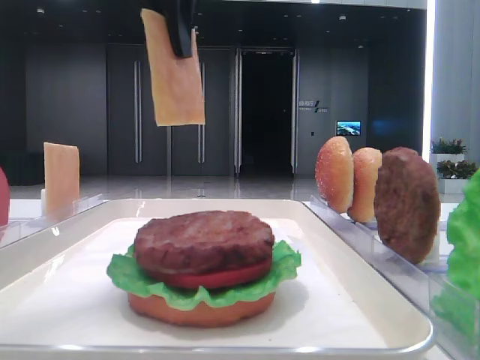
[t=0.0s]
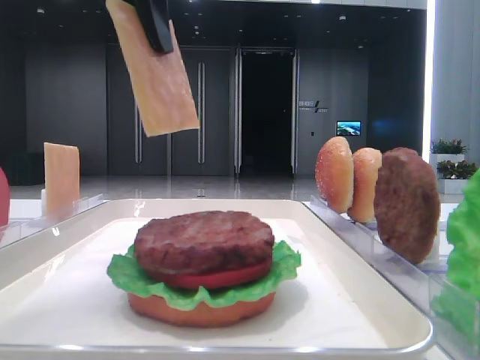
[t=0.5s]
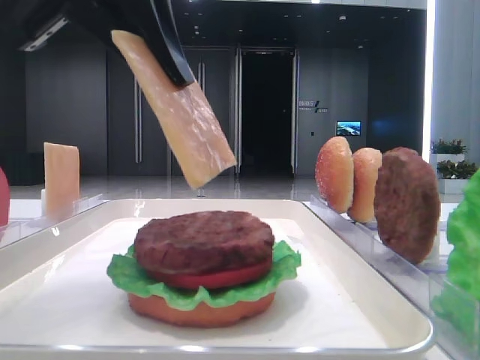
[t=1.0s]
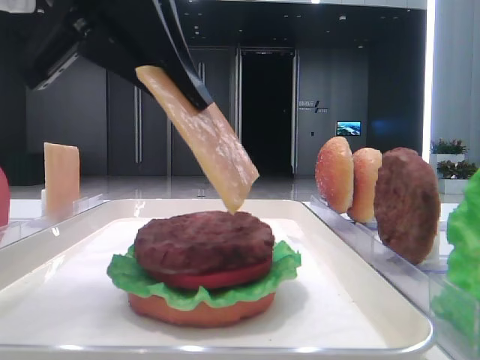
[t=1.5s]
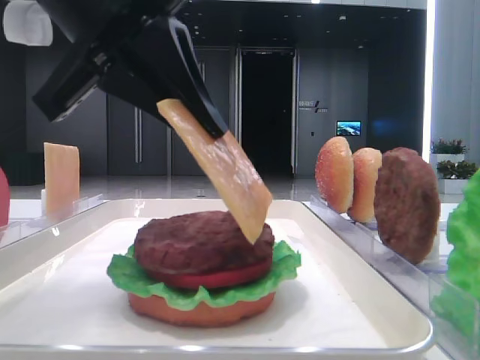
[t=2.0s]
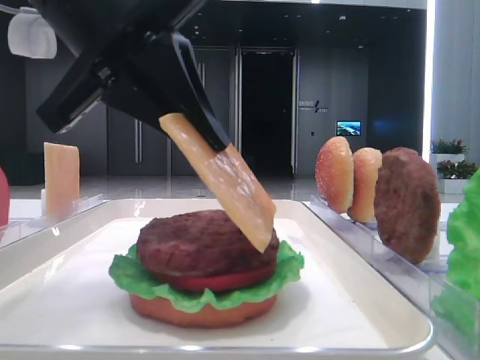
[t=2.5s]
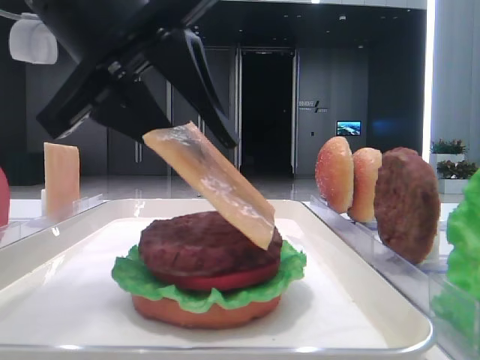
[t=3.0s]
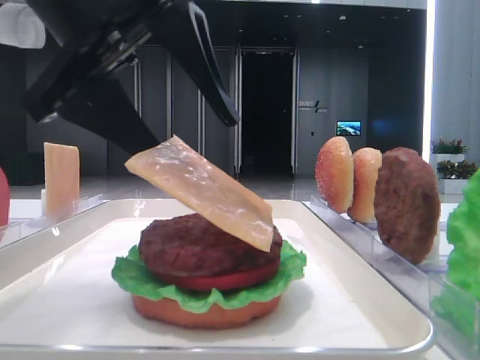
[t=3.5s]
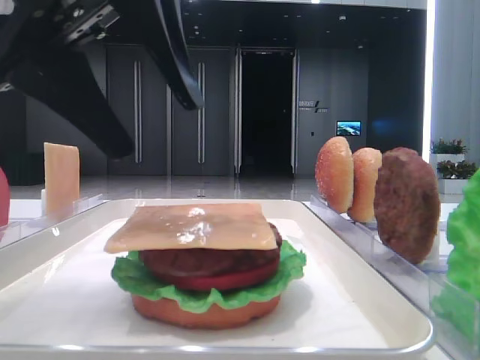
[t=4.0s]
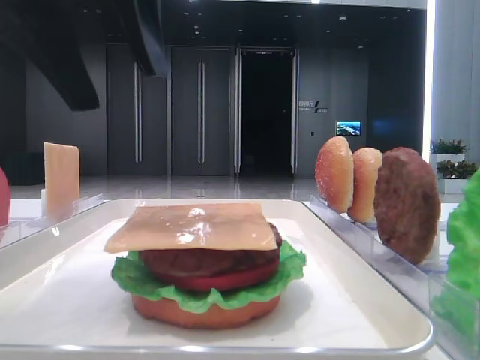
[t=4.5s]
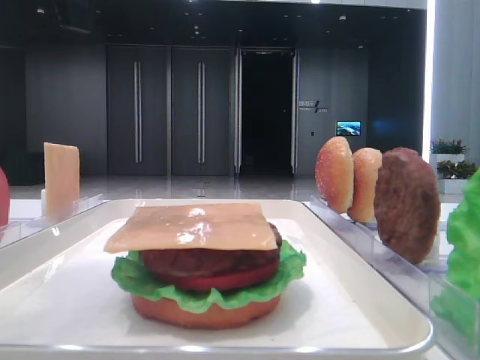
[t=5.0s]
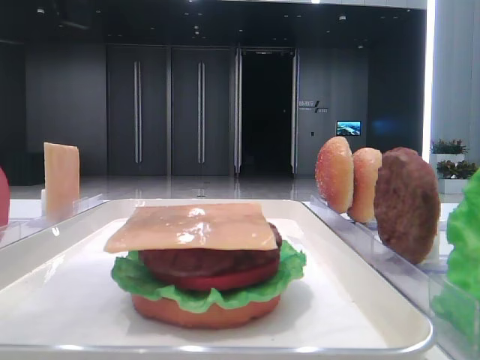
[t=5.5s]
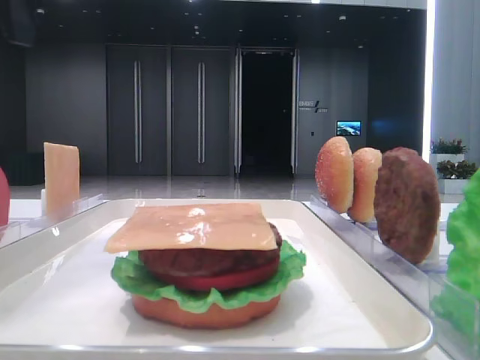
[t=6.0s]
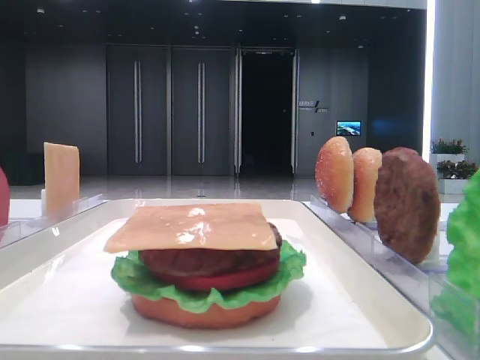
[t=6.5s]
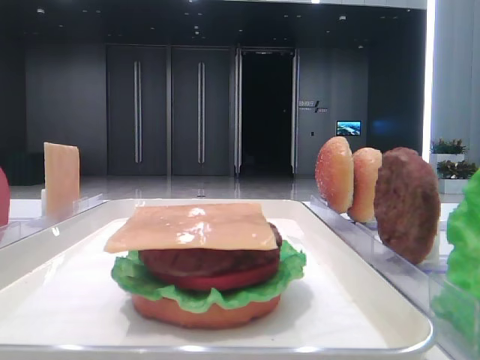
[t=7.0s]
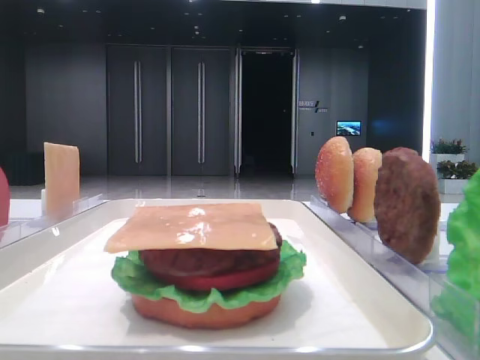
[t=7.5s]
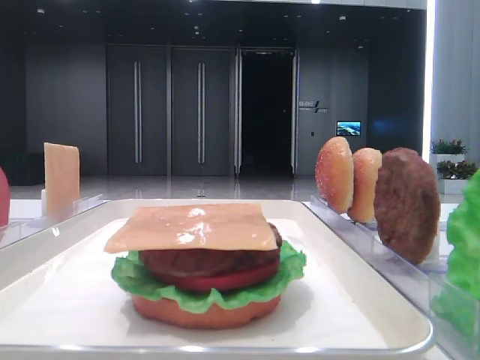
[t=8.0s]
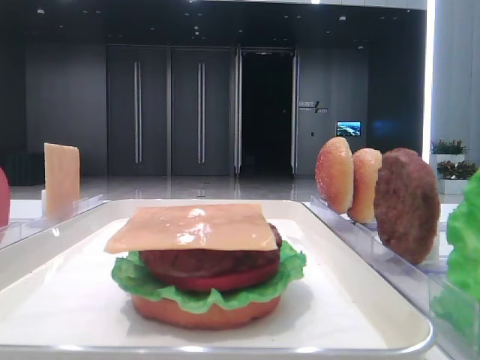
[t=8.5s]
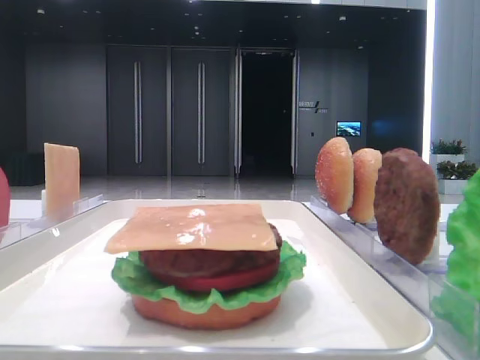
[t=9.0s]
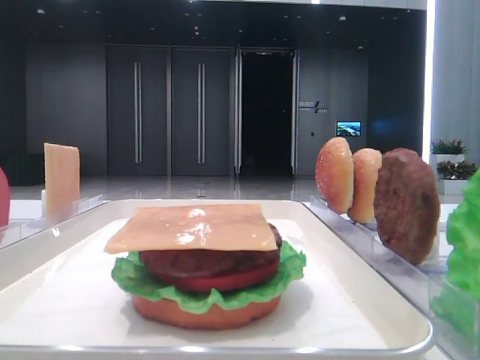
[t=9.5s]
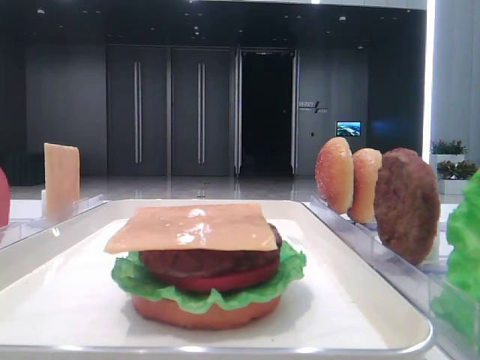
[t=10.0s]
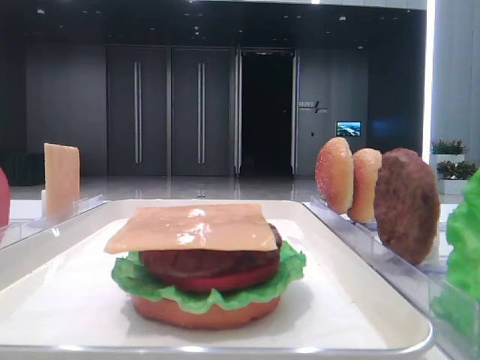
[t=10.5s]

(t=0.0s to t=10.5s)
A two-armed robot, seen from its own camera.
Step, t=0.0s - t=3.5s: Place the cheese slice on the patty with the left hand.
t=0.0s - t=2.0s: The left gripper goes about 15 cm downward and backward.
t=2.0s - t=4.0s: The left gripper opens its fingers.
t=4.0s - t=6.5s: The left gripper heads to the left, upward and forward, covering about 20 cm.

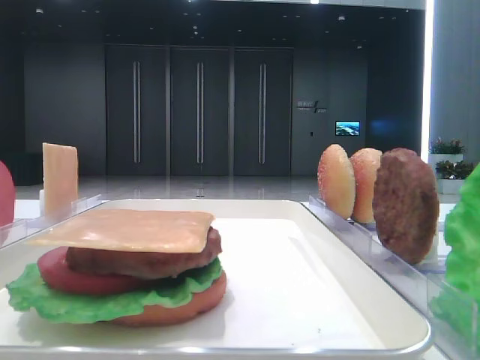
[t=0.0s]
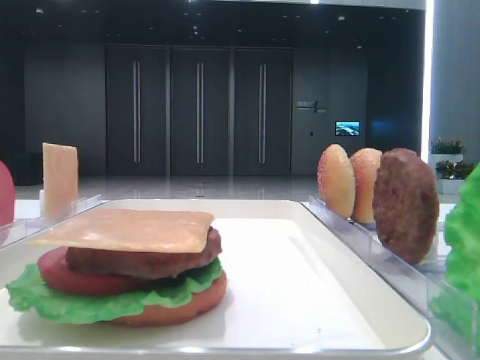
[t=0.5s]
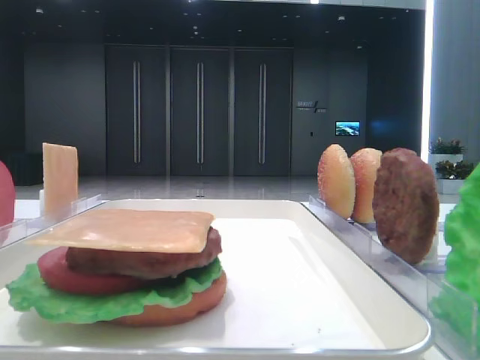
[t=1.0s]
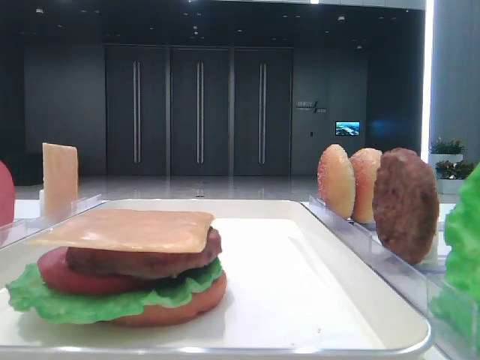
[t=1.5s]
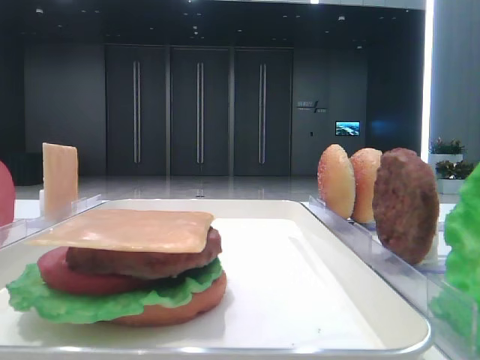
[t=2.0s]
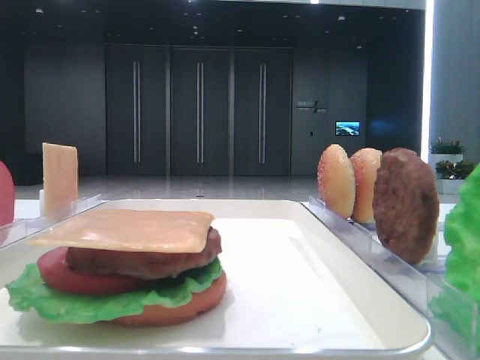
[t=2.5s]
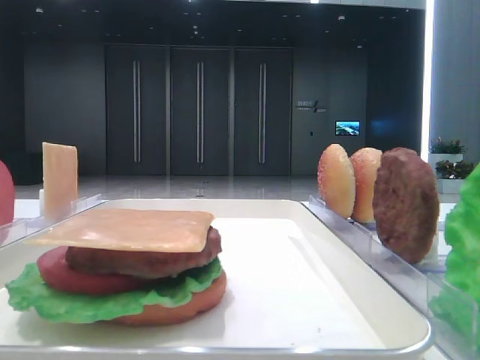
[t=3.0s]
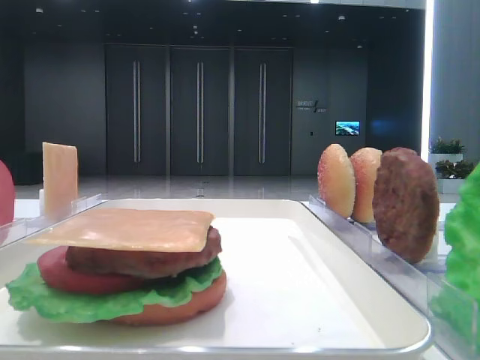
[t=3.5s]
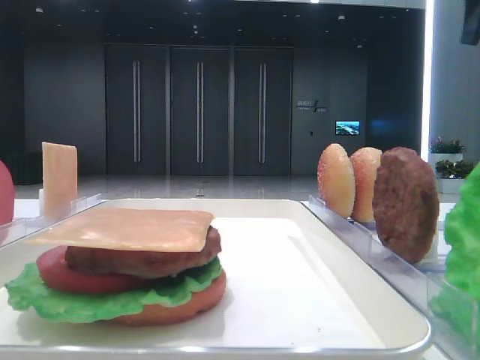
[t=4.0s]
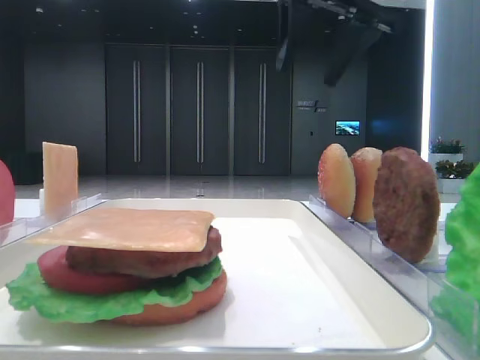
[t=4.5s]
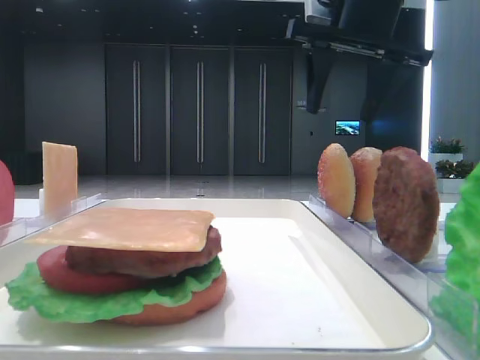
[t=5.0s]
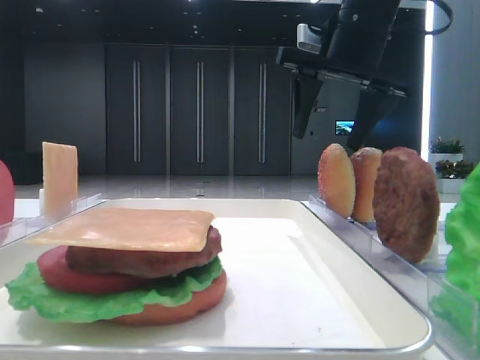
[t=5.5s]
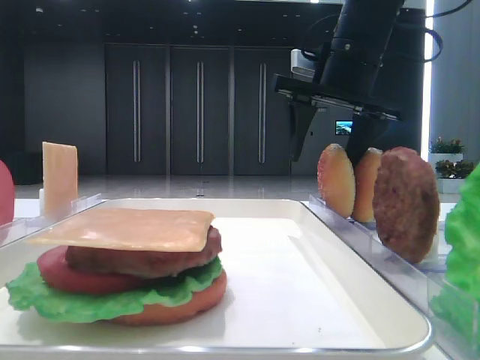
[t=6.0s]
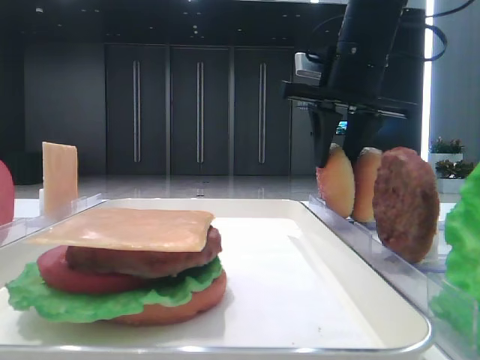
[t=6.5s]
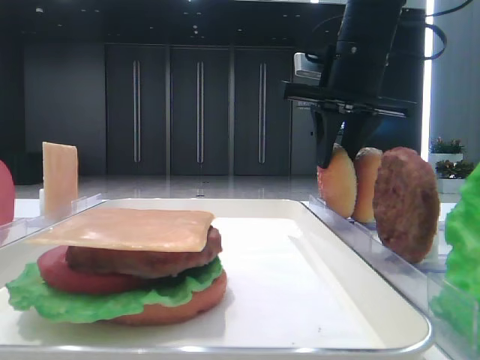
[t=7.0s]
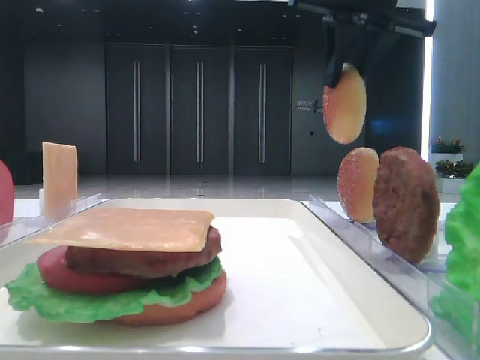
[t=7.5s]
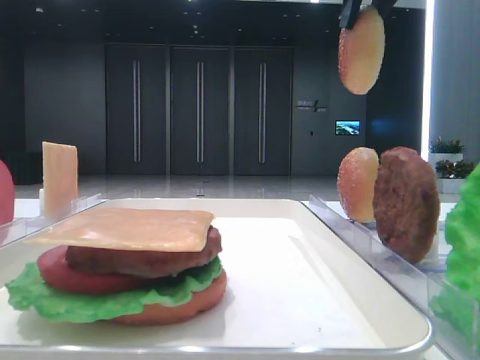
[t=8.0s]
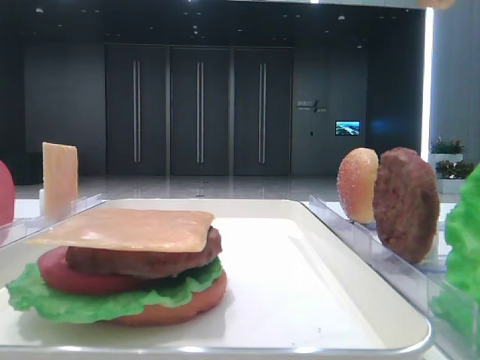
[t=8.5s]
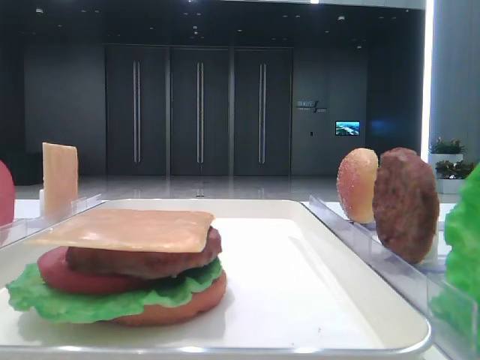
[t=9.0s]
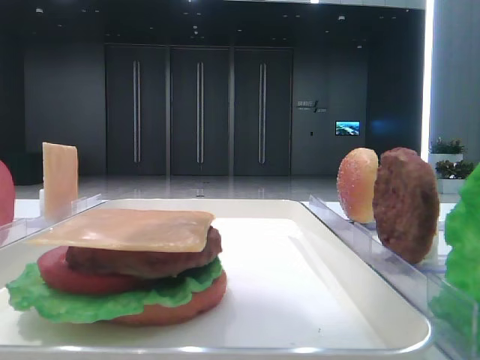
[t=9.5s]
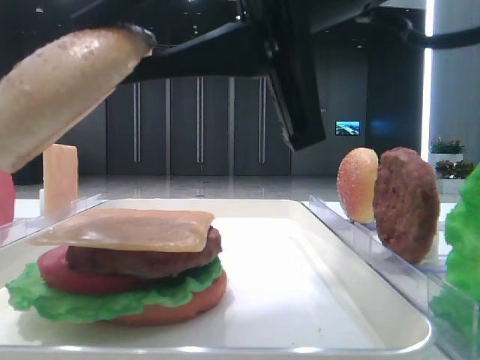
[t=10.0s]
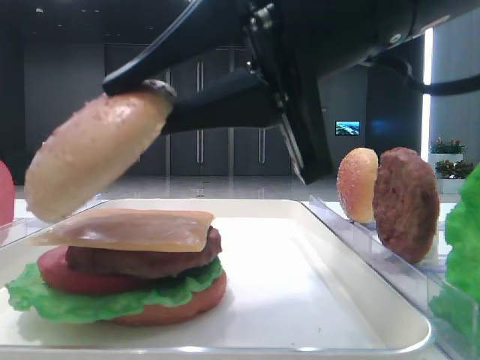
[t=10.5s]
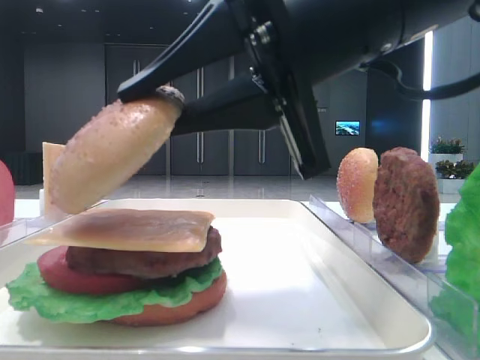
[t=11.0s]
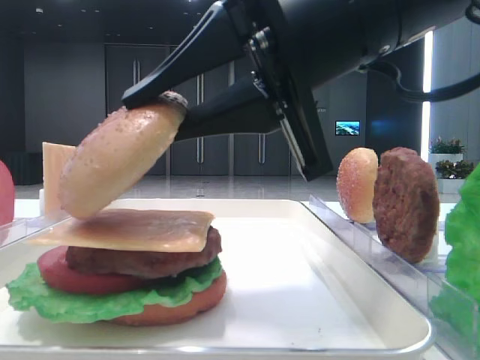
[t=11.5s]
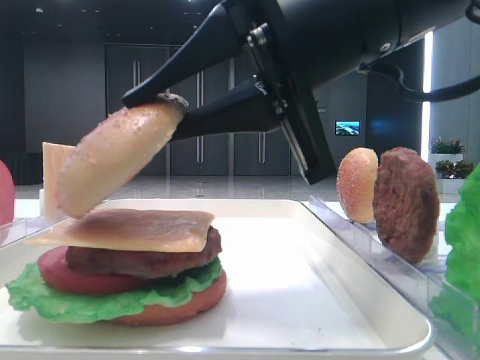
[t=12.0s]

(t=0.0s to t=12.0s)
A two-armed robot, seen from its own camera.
Step, t=0.0s - t=6.5s: Pick up the top bread slice with the right hand.
t=2.0s - t=4.0s: The right gripper heads forward, covering some 35 cm, and opens.
t=4.0s - t=6.0s: The right gripper heads to the left, downward and forward, covering some 20 cm.
t=6.0s - t=8.0s: The right gripper shifts about 15 cm upward and backward, and closes up.
t=8.0s - t=10.0s: The right gripper is displaced backward, downward and to the left by roughly 25 cm.

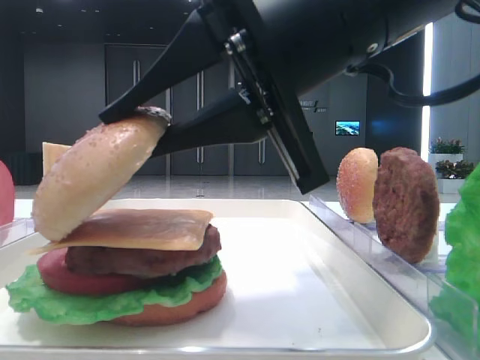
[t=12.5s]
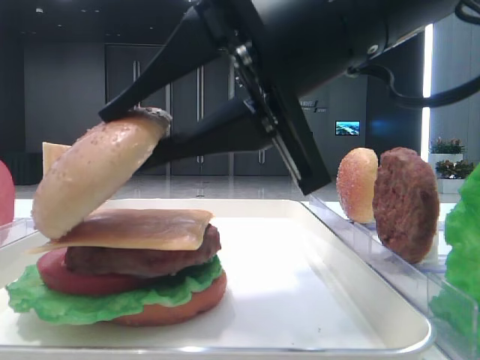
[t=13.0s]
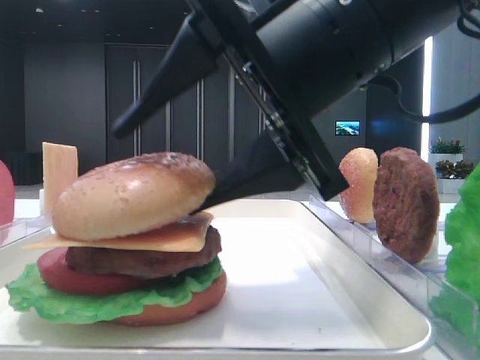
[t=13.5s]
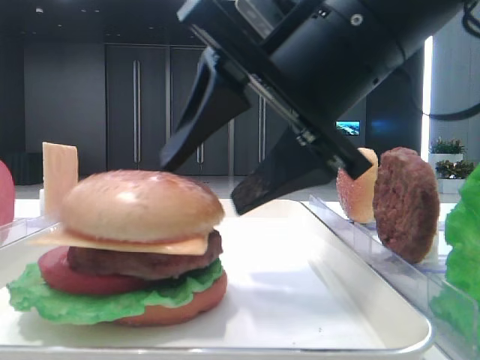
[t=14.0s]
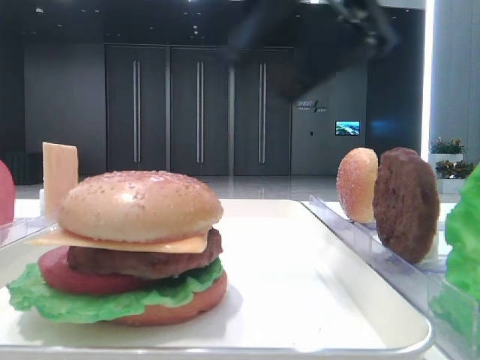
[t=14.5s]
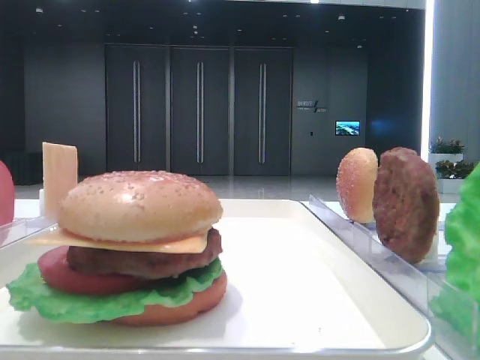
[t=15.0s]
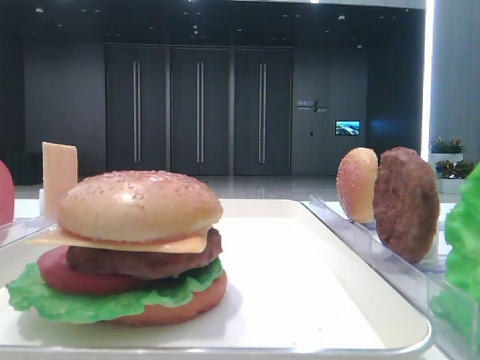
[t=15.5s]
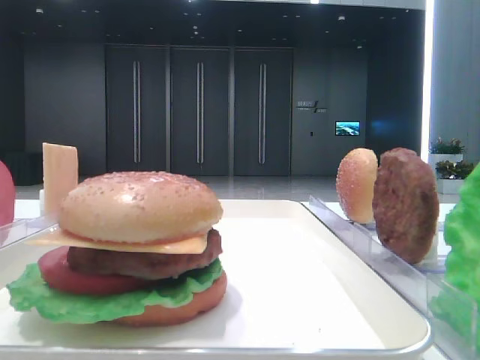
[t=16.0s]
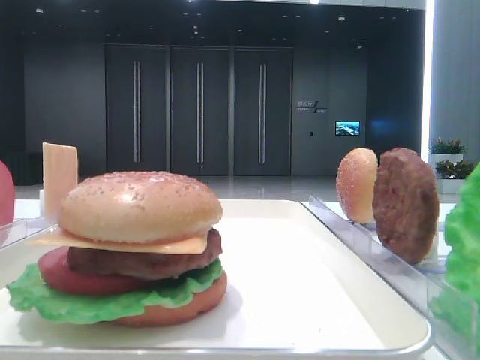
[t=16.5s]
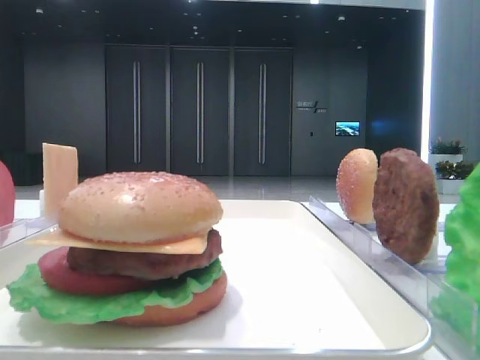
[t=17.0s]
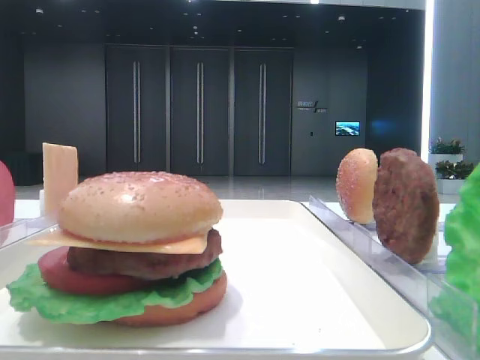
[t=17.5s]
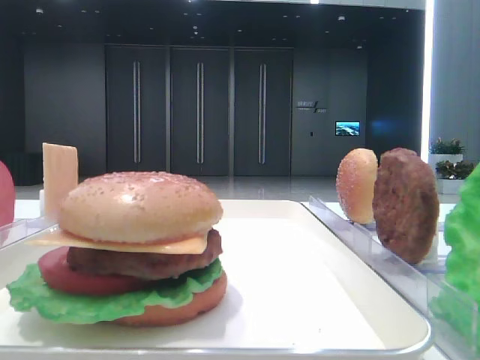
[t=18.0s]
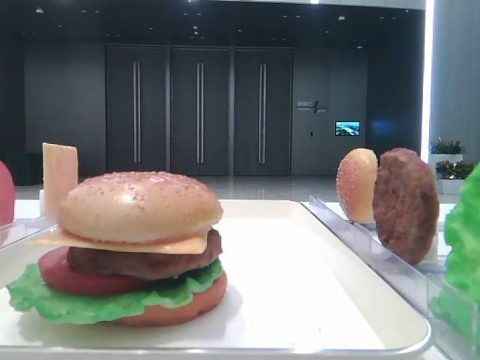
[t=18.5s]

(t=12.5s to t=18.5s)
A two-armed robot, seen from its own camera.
t=12.5s - t=14.5s: The right gripper travels upward by approximately 10 cm, and opens up.
t=14.5s - t=16.5s: The right gripper heads backward and to the right, covering roughly 30 cm, and closes its fingers.
